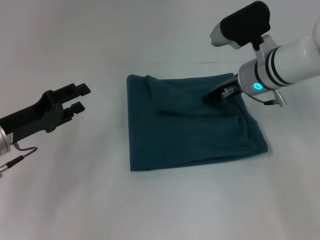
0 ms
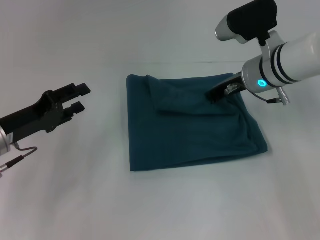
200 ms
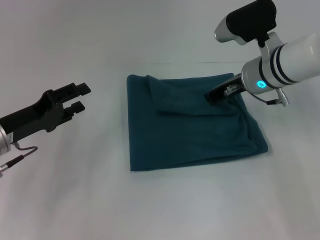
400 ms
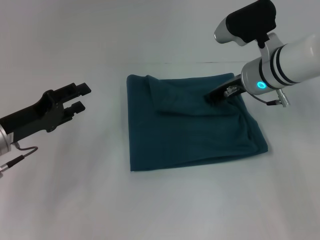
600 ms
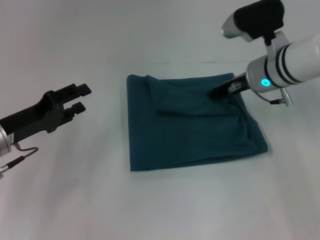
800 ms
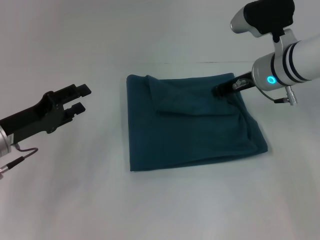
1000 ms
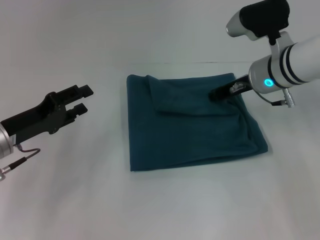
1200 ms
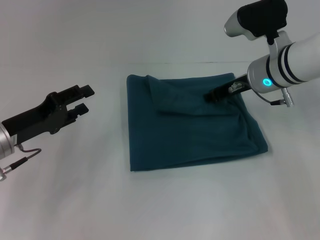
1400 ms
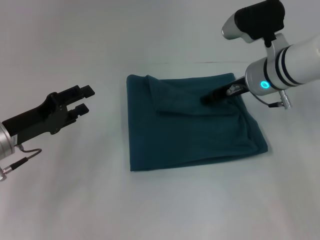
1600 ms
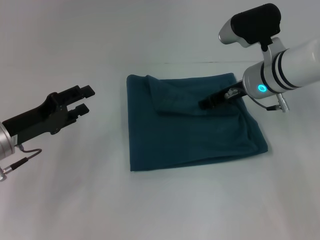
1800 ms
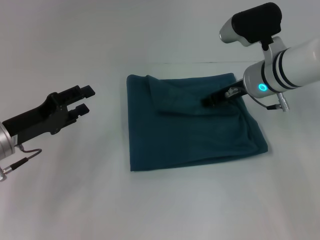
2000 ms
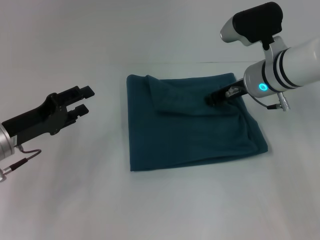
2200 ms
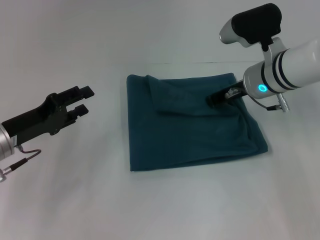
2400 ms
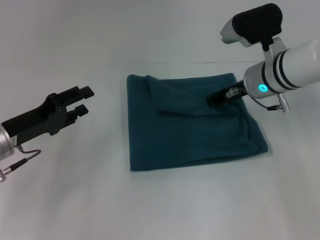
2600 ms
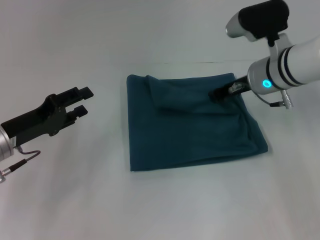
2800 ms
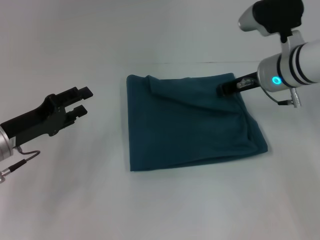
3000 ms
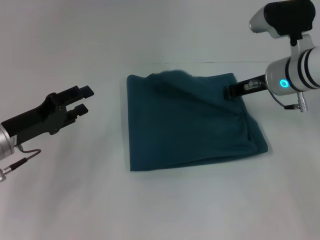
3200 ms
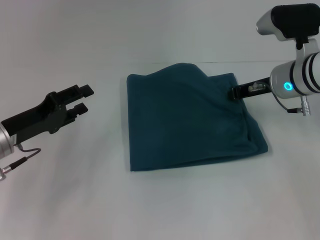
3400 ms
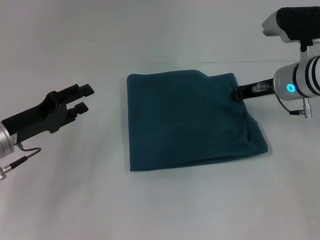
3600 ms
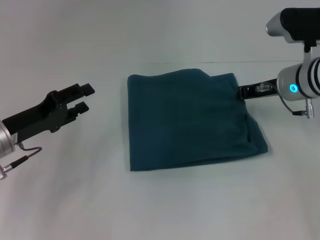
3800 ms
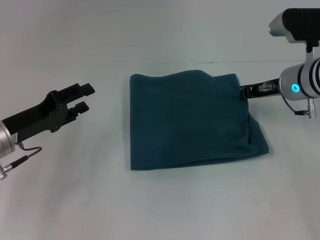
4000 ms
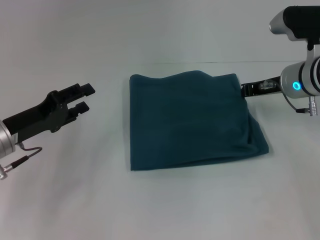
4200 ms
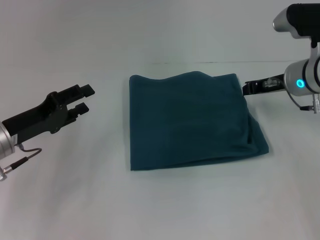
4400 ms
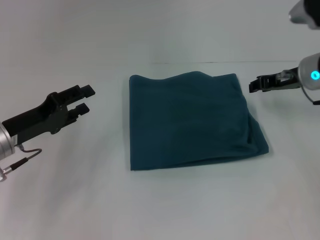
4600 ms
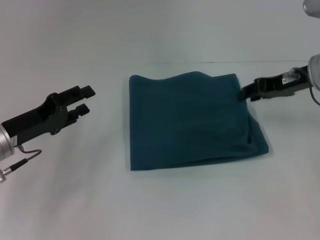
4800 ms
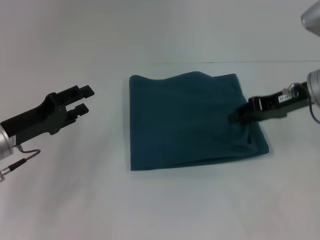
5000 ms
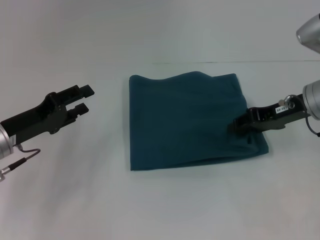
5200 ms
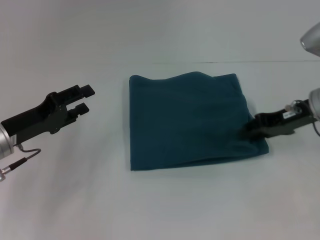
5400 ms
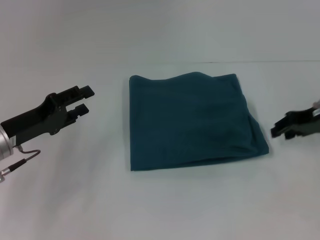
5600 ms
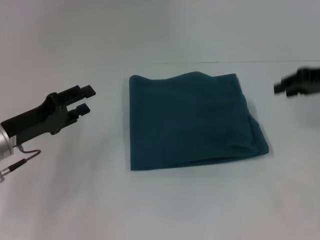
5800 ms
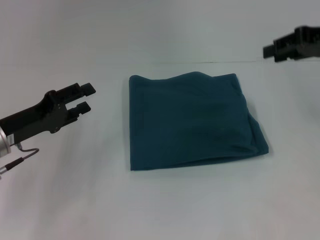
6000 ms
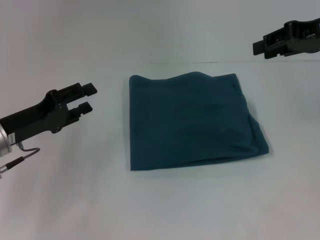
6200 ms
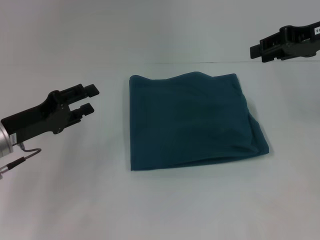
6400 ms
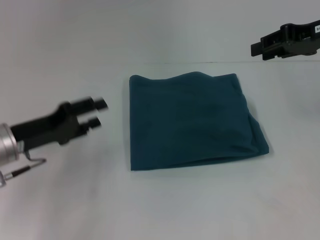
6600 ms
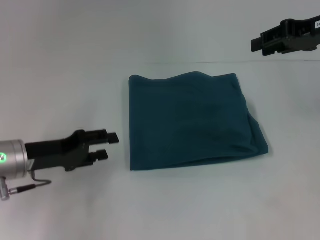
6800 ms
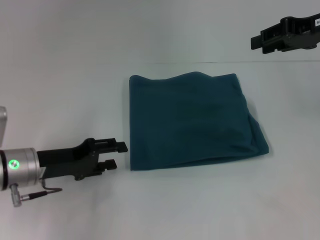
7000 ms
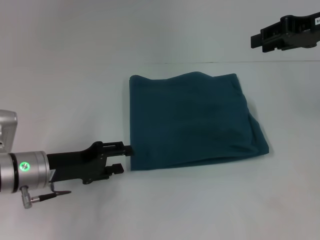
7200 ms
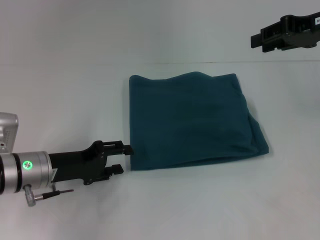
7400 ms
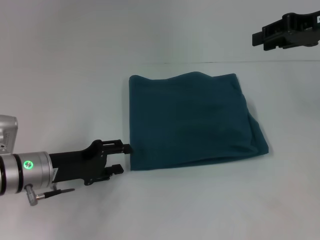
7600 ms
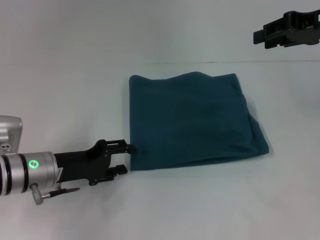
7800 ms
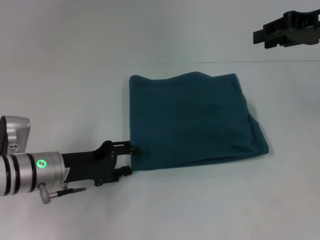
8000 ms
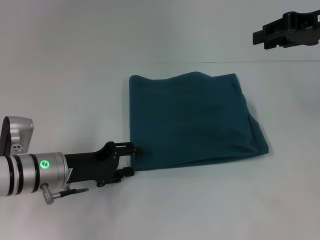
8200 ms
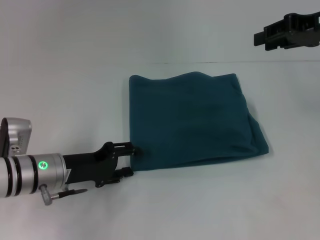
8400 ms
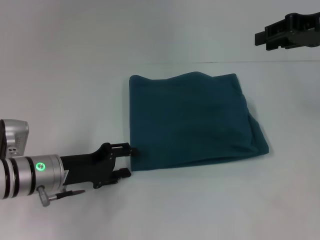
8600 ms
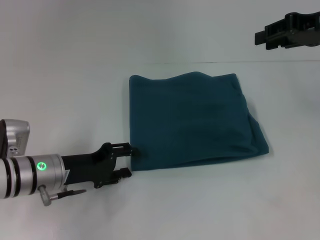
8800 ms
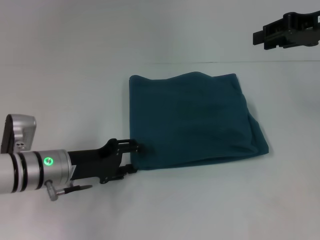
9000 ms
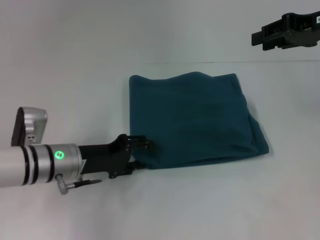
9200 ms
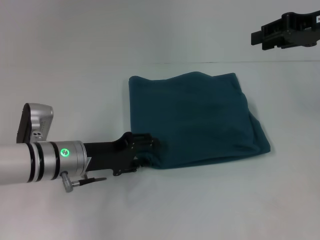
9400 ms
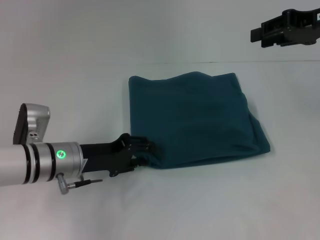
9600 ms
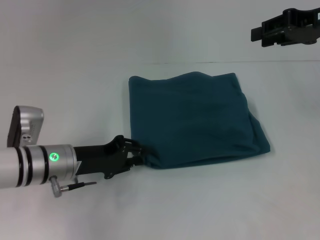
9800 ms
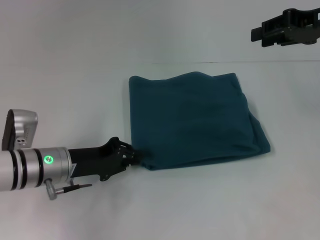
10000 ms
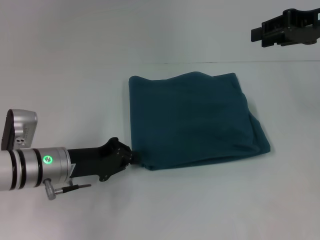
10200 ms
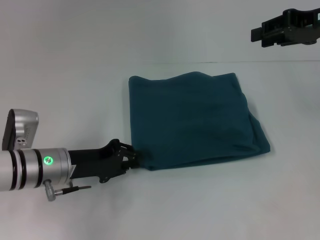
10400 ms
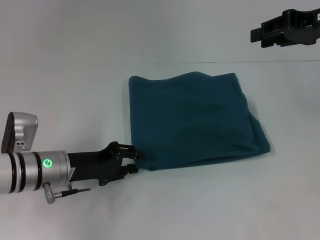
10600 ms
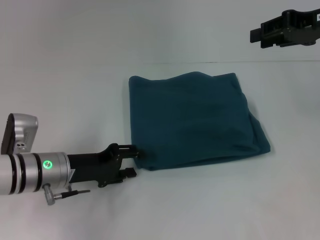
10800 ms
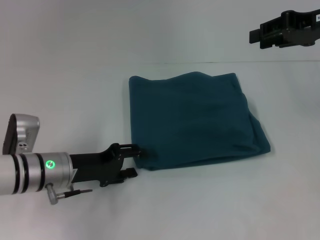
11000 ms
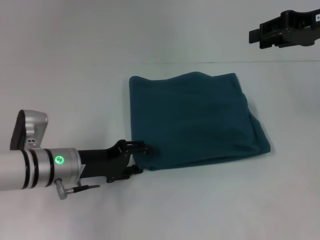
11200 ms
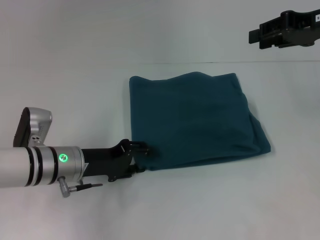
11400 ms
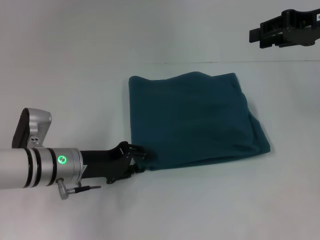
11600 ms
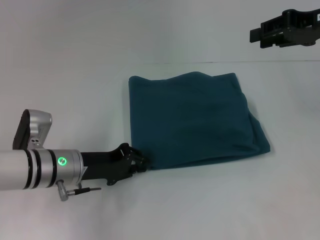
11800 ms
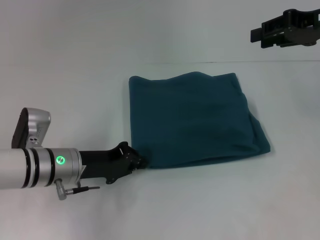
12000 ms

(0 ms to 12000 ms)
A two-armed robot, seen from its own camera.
0 ms - 3000 ms: The grippers move only a little.
3000 ms - 4400 ms: The grippers move only a little.
4400 ms - 6000 ms: The right gripper moves upward and to the right, approximately 15 cm, and opens up.
6000 ms - 7600 ms: The left gripper moves some 5 cm.
7600 ms - 9000 ms: The grippers make only small movements.
9000 ms - 10400 ms: The left gripper closes its fingers.
10400 ms - 12000 ms: The left gripper opens, then closes once more.

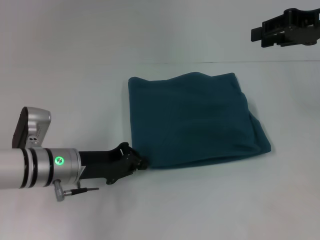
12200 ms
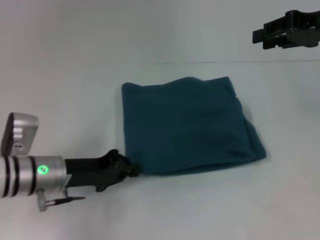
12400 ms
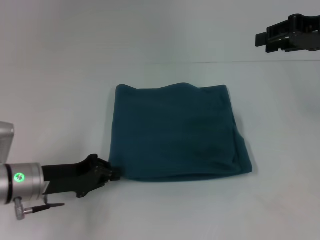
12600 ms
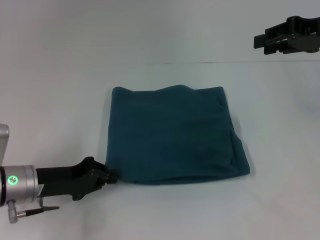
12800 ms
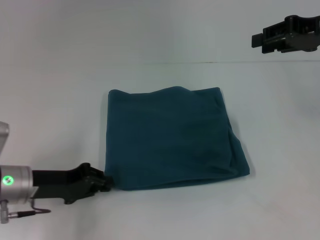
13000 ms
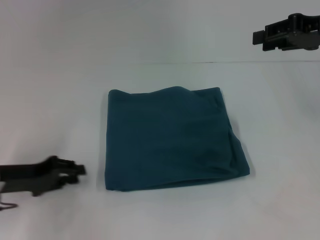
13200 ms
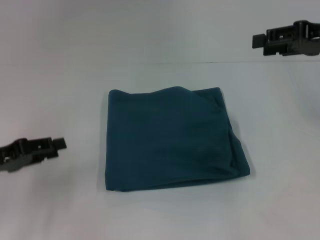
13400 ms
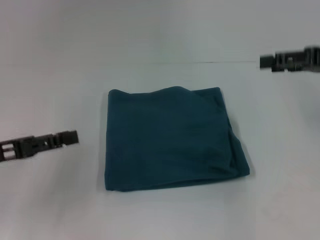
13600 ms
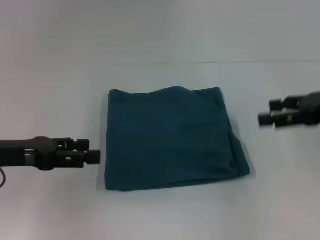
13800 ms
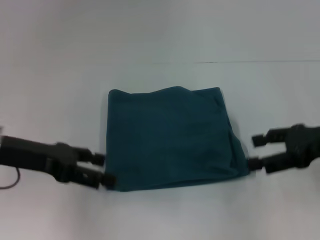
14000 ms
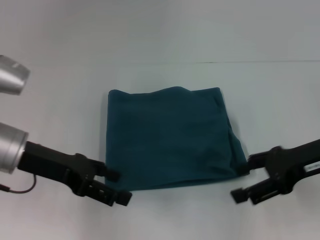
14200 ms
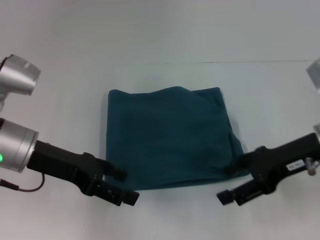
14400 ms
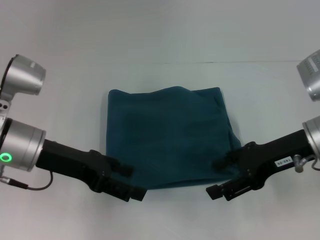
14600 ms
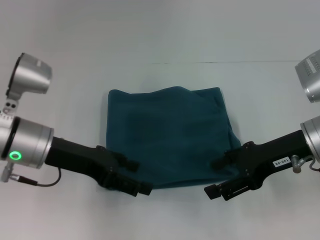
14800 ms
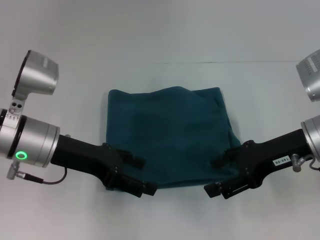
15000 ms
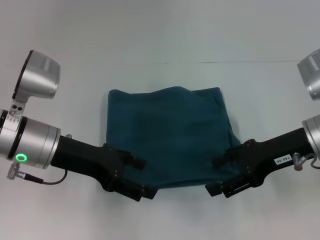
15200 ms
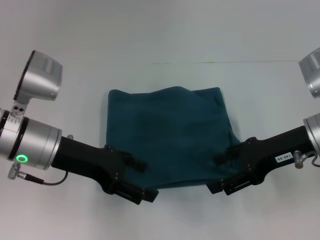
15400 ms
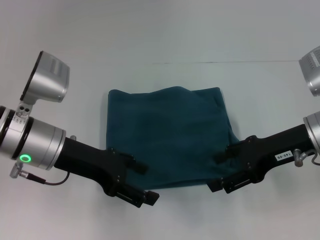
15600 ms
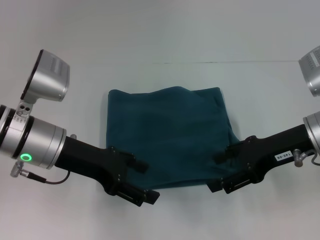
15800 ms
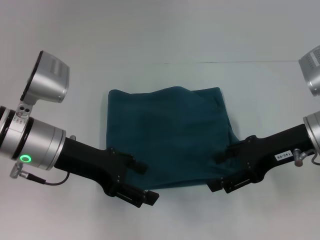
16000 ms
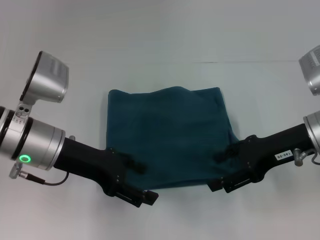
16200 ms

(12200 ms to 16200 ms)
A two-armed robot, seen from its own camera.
12200 ms - 13600 ms: The right gripper shifts by roughly 5 cm. The left gripper is displaced to the left, upward and backward by some 15 cm, and opens up.
13600 ms - 14800 ms: The right gripper shifts about 10 cm to the left and downward, and opens up. The left gripper travels to the right and forward by approximately 10 cm, and opens.
14800 ms - 16200 ms: The grippers move only a little.

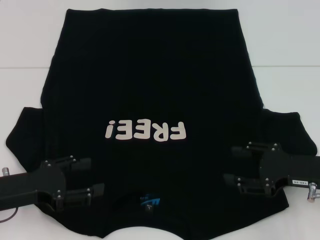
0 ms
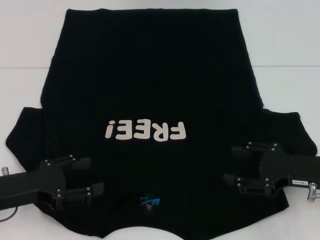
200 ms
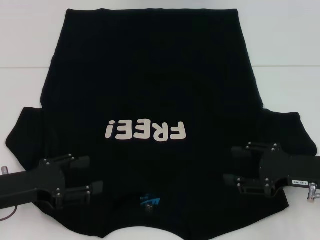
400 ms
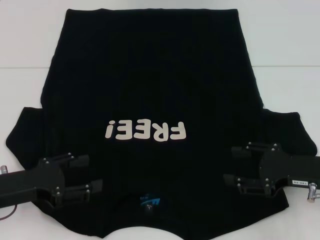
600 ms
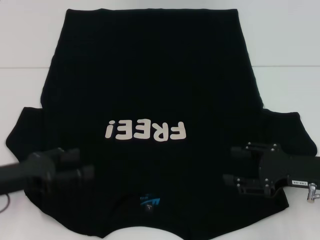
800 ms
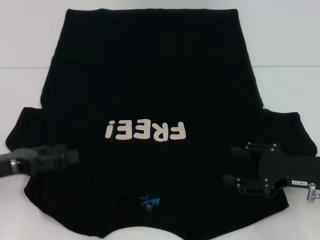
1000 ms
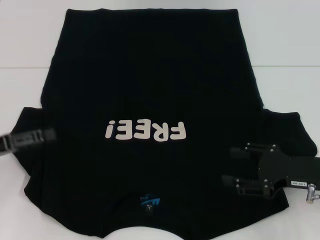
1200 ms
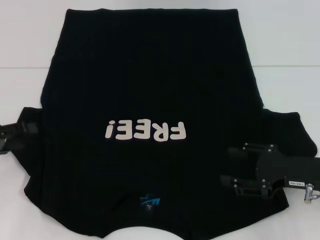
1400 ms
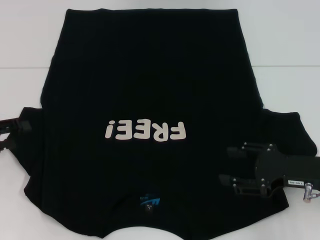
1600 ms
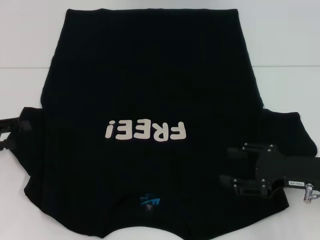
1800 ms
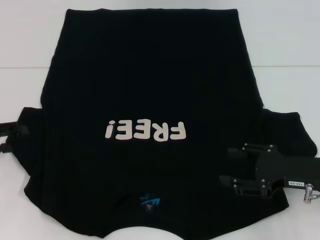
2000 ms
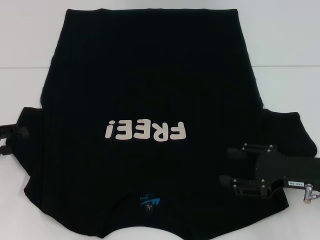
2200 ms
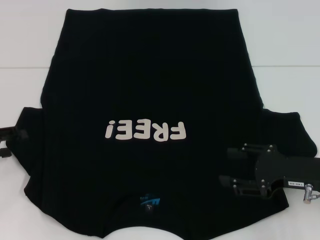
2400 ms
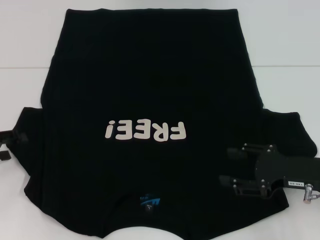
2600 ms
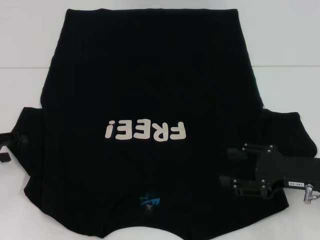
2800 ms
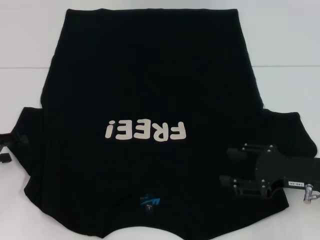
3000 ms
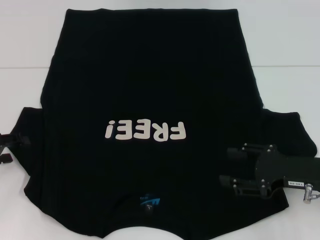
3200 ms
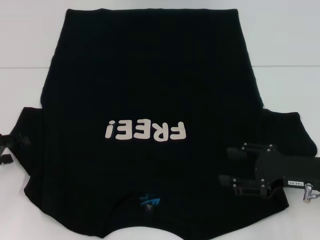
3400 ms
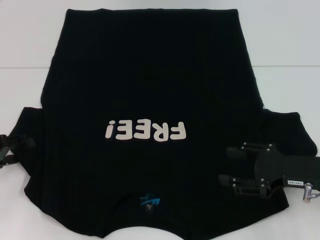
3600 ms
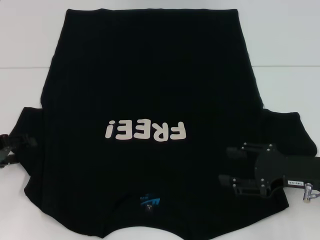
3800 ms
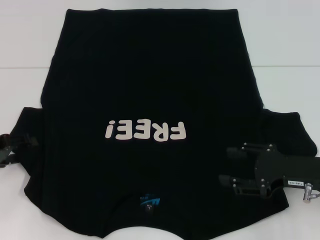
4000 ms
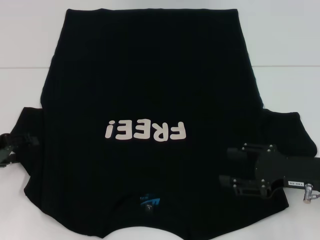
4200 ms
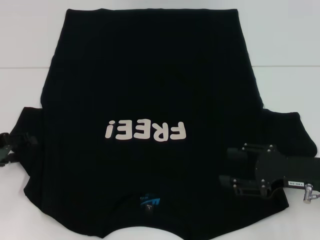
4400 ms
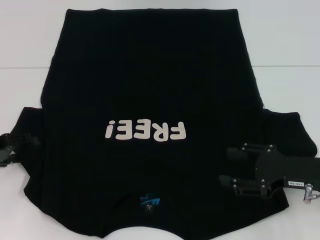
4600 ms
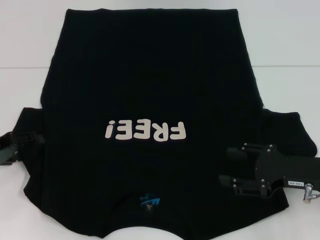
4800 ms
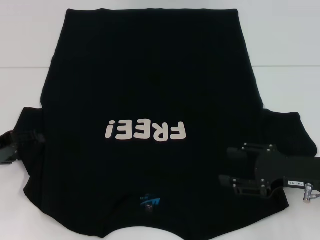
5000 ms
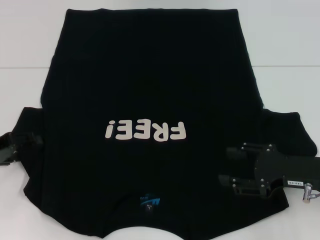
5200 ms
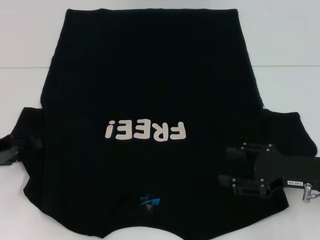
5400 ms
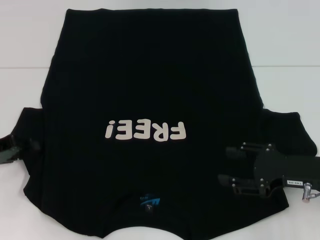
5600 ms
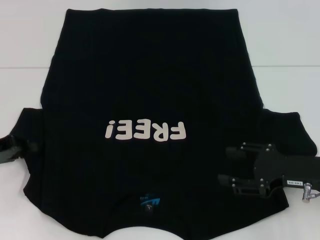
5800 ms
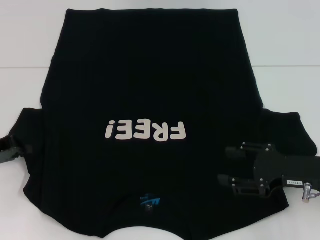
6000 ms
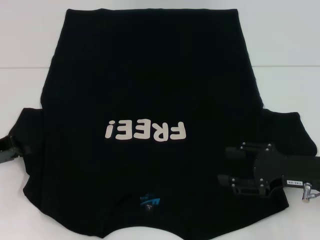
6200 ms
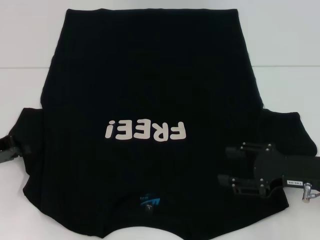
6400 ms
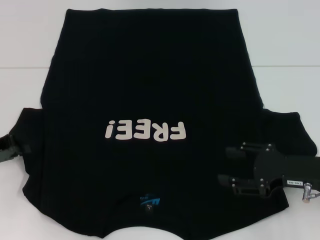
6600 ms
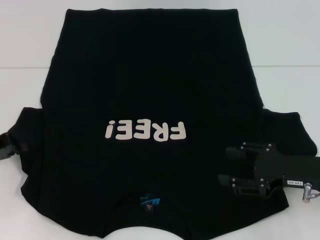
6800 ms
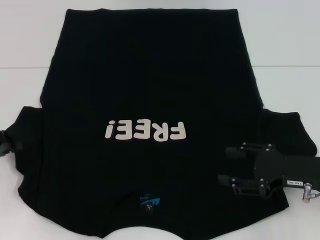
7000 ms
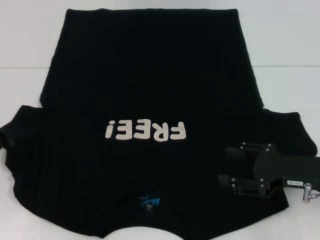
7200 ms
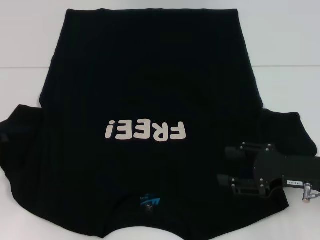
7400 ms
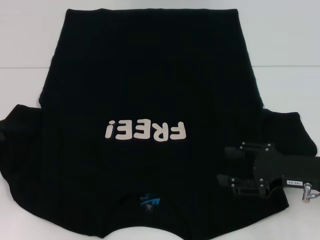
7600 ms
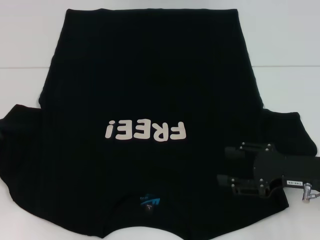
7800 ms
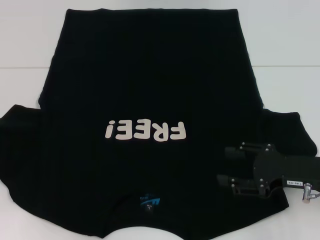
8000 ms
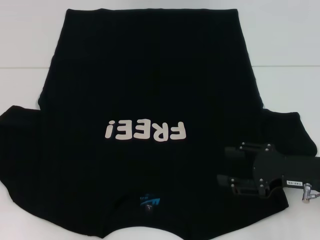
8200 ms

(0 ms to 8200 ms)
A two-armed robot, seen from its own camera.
0 ms - 1600 ms: The left gripper shifts about 10 cm to the left.
1600 ms - 3200 ms: The grippers make only small movements.
6600 ms - 8200 ms: The left gripper moves approximately 5 cm.
